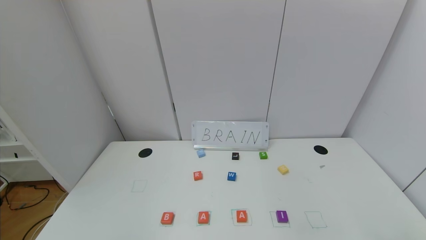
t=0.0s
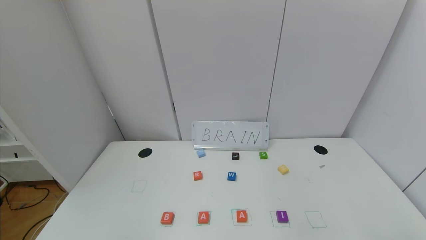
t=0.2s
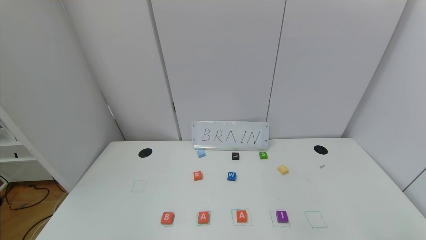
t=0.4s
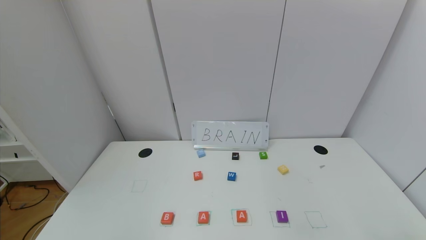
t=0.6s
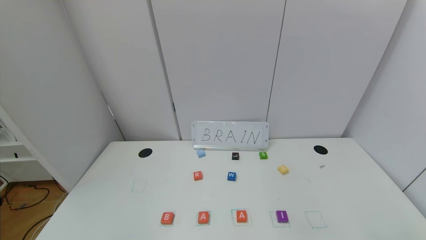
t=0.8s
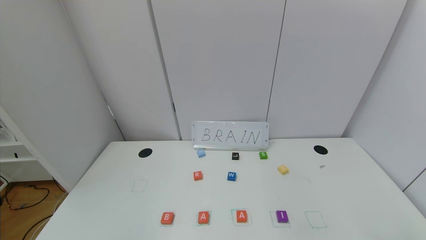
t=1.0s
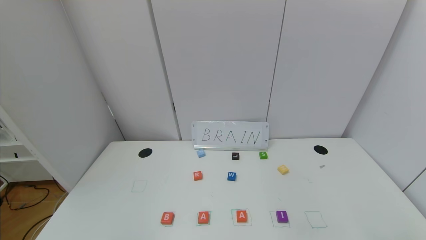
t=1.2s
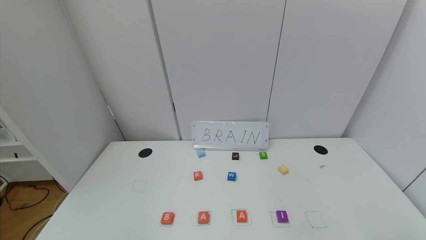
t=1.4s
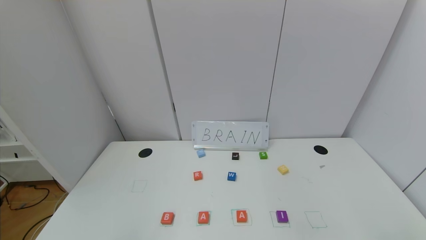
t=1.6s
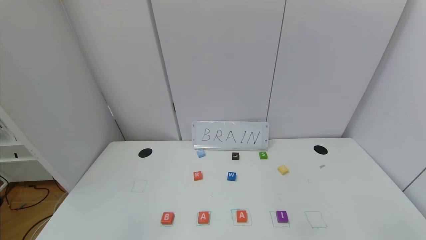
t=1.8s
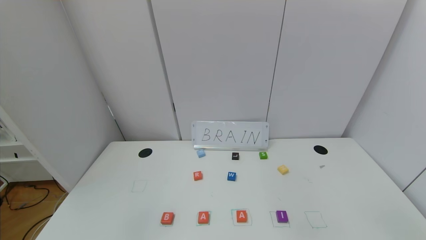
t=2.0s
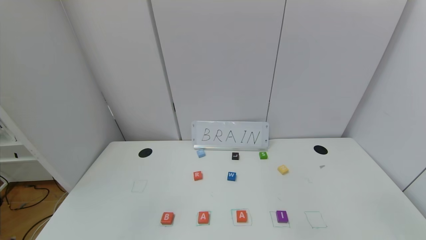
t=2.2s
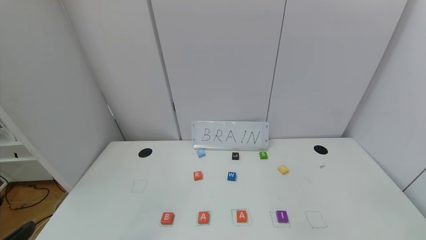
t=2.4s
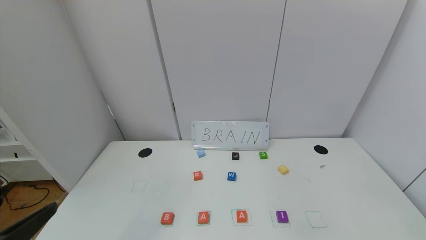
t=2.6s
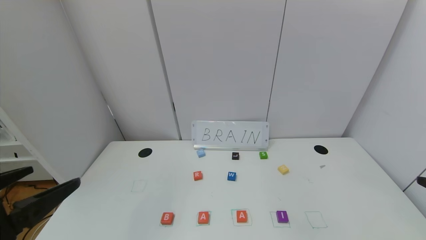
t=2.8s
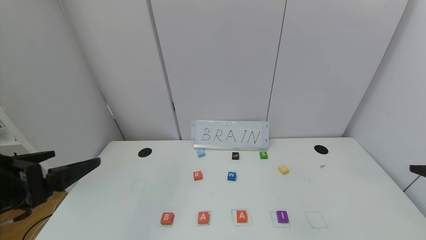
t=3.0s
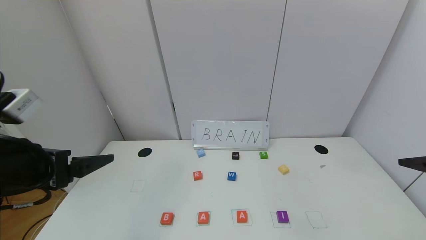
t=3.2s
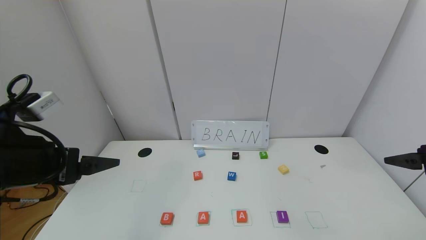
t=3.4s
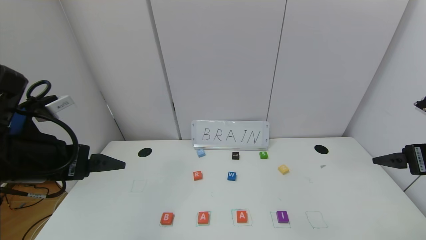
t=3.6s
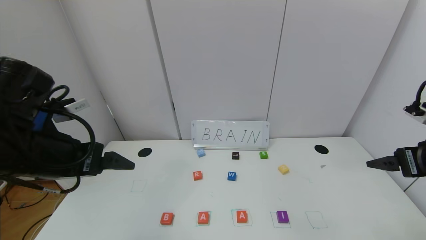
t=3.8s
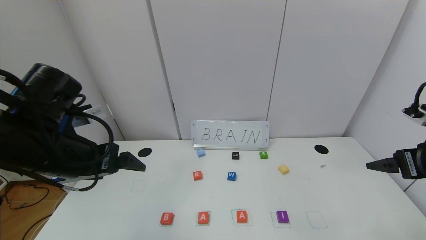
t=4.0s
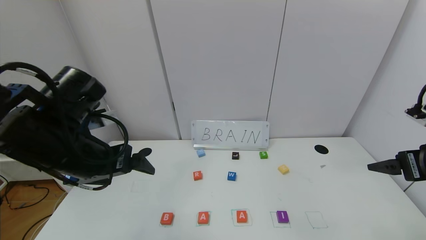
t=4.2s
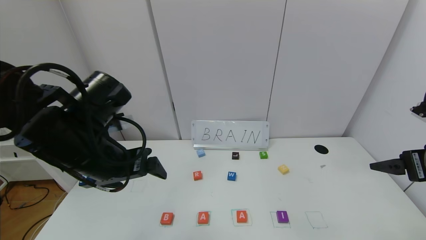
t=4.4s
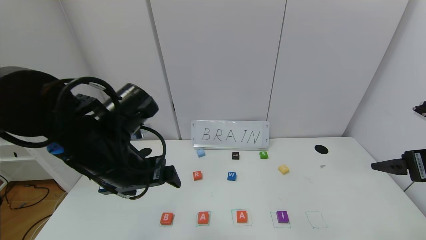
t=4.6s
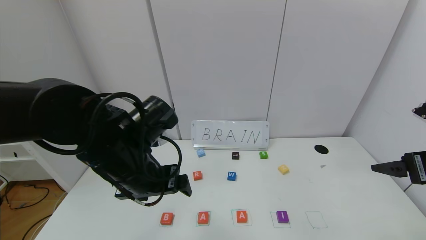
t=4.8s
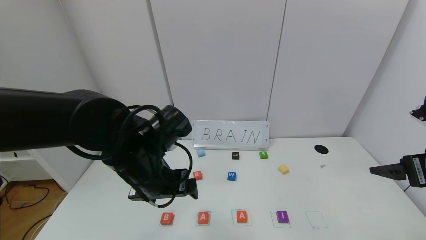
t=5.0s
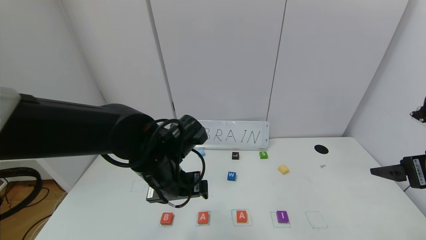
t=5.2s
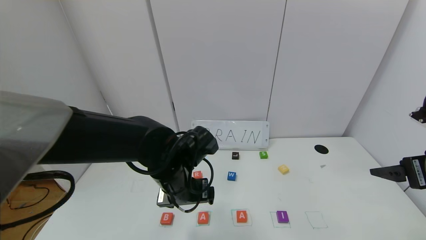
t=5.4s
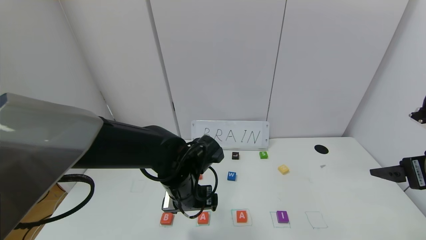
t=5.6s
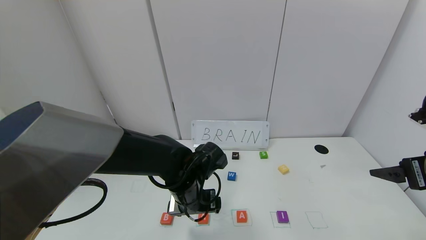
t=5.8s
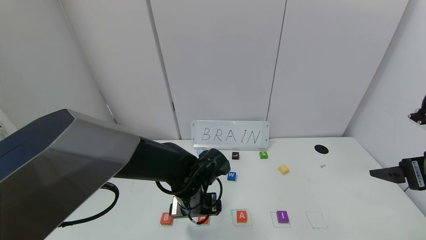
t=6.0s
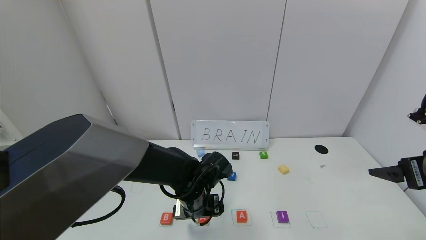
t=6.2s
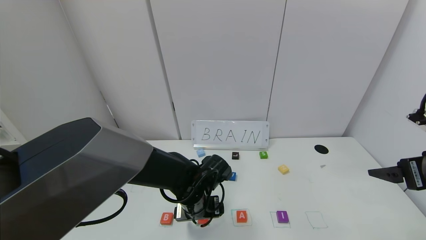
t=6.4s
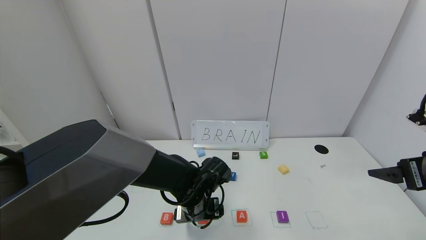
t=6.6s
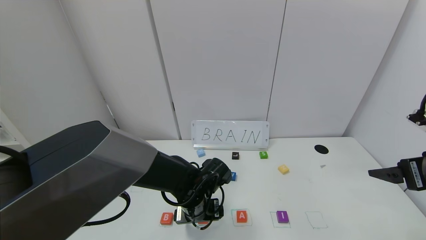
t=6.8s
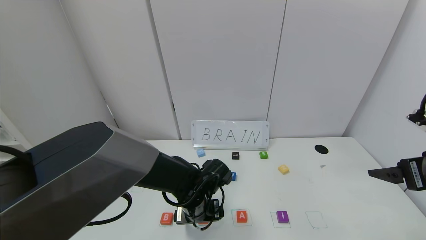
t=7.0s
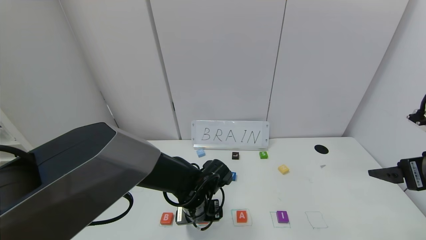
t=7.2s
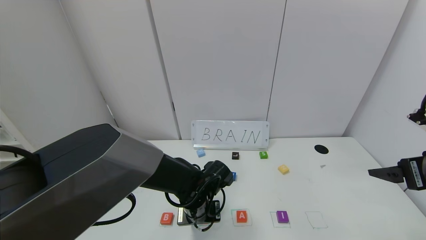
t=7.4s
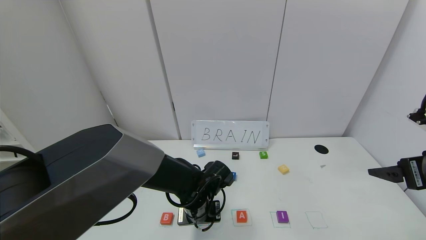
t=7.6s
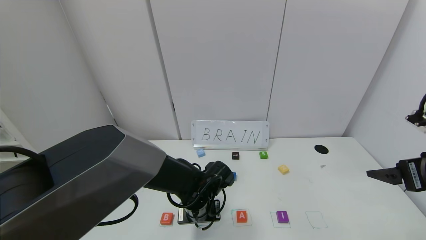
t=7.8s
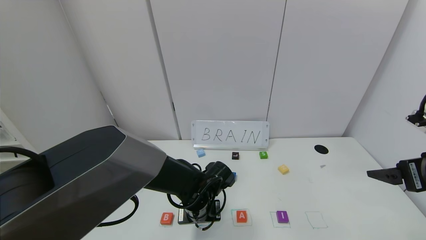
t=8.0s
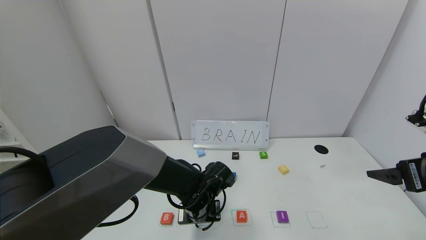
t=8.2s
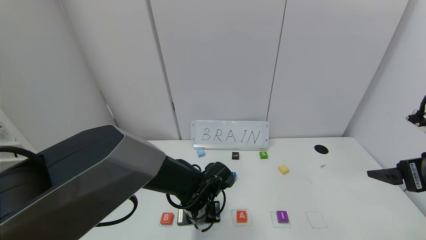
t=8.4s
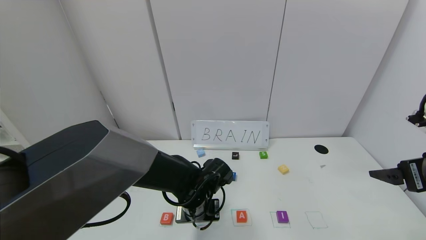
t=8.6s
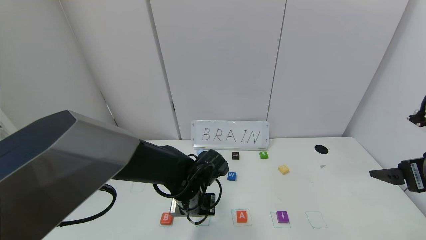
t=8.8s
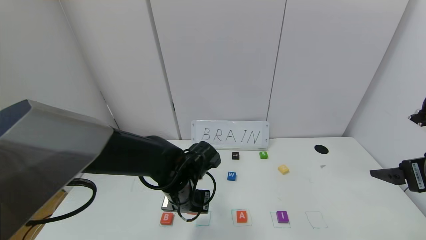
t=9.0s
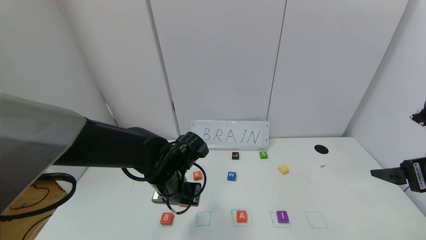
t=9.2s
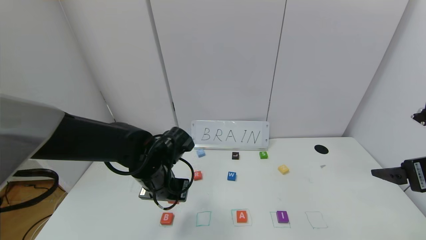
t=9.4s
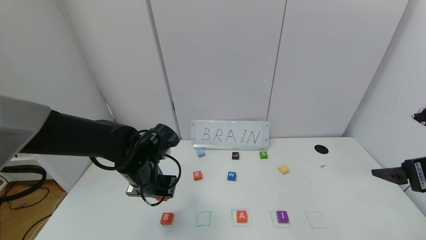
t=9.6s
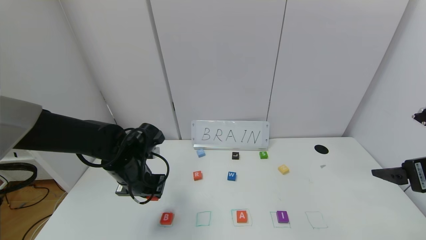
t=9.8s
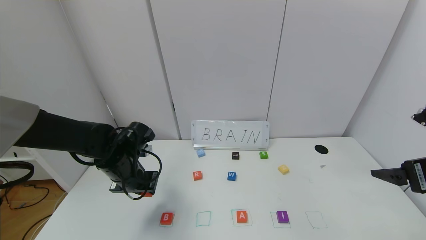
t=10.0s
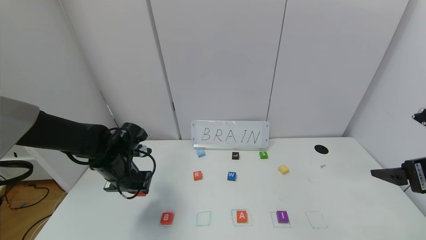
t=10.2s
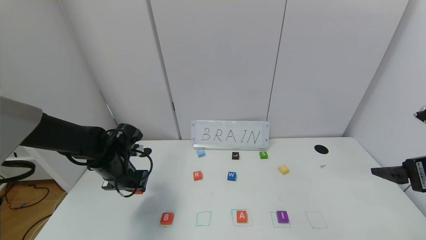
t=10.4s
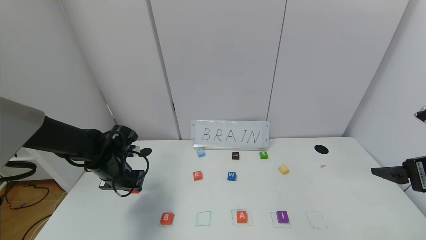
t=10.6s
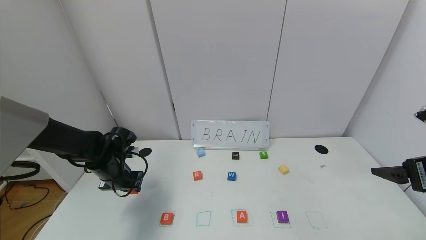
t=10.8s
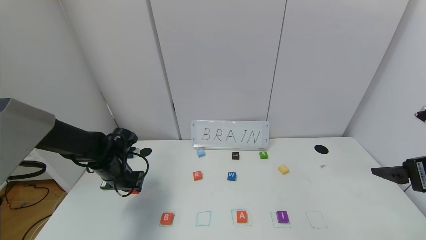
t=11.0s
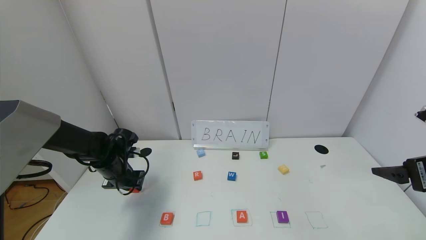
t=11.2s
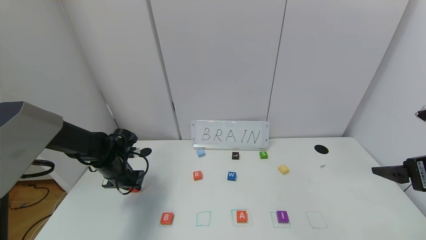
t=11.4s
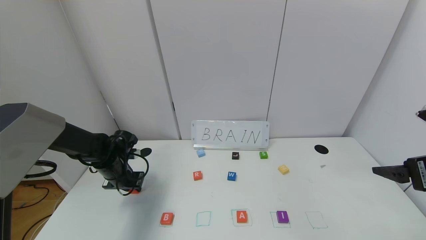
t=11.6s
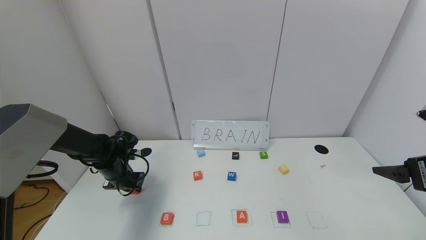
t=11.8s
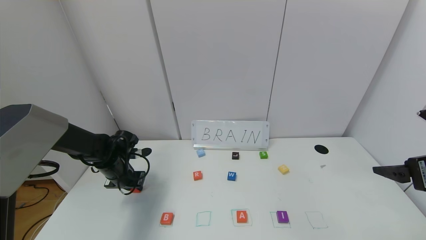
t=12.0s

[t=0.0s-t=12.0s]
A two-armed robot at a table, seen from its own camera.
Task of the whole recording: use the gripper to find blocks with the letters b, a, a, and i on the table and arrange them into BAAI, then find r and N and turn the arranged baai into brian.
t=1.6s to t=3.0s: The left gripper is displaced forward and upward by some 20 cm.
t=3.0s to t=4.4s: The left gripper shifts some 15 cm forward and to the right, while the right gripper shifts about 5 cm forward.
t=4.4s to t=6.0s: The left gripper is displaced downward and to the right by approximately 20 cm.
t=6.0s to t=7.6s: The left gripper closes.
t=7.6s to t=9.0s: The left gripper heads upward, covering approximately 5 cm.
t=9.0s to t=10.4s: The left gripper moves to the left, some 15 cm.
t=10.4s to t=12.0s: The left gripper ends up approximately 5 cm from where it was.

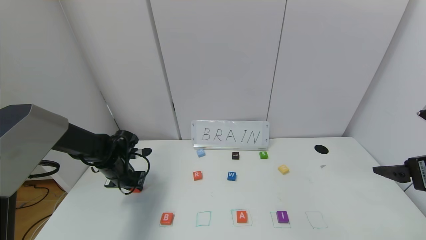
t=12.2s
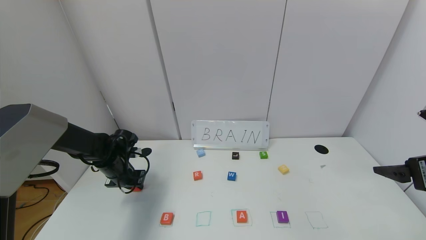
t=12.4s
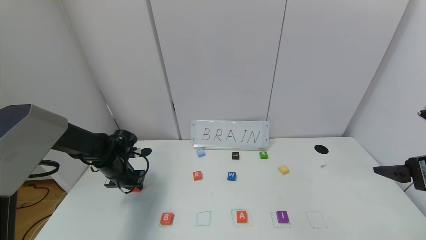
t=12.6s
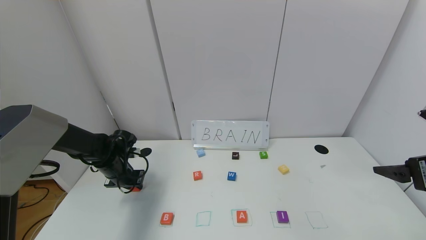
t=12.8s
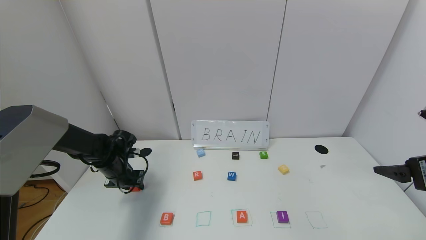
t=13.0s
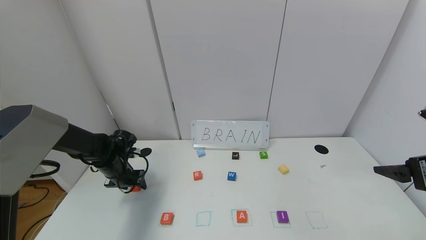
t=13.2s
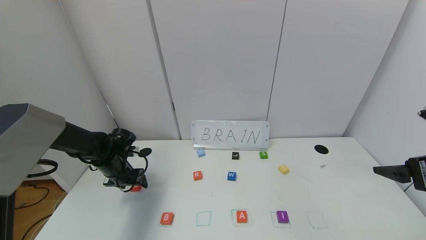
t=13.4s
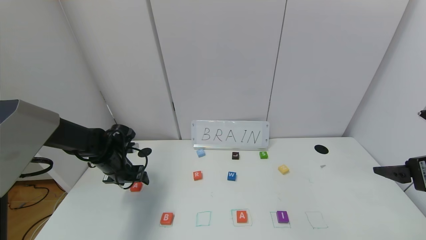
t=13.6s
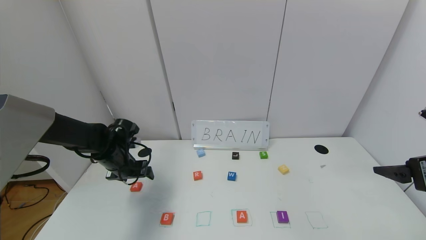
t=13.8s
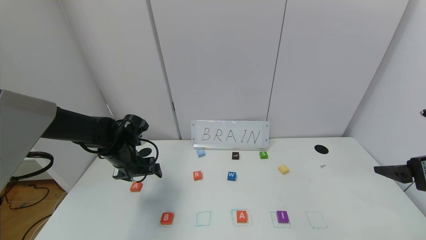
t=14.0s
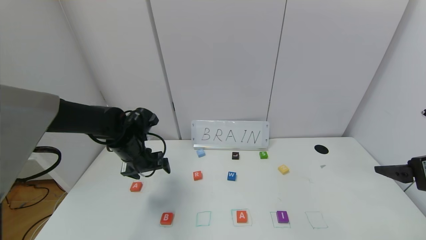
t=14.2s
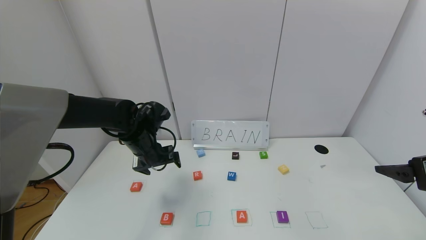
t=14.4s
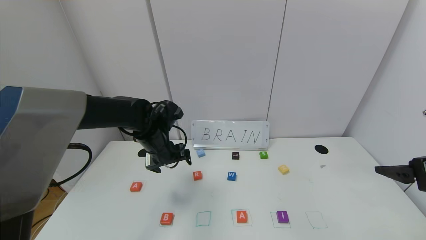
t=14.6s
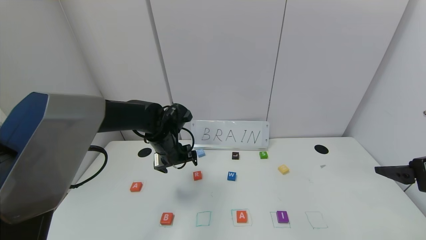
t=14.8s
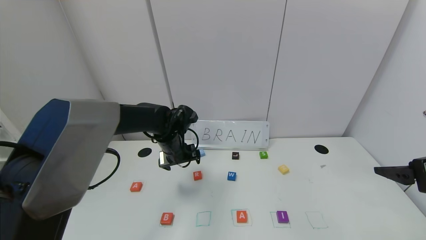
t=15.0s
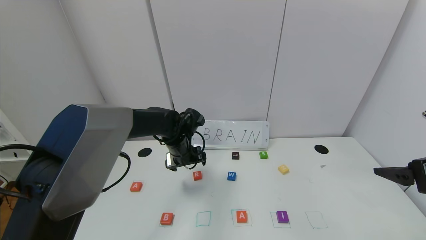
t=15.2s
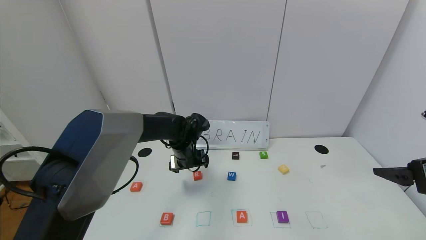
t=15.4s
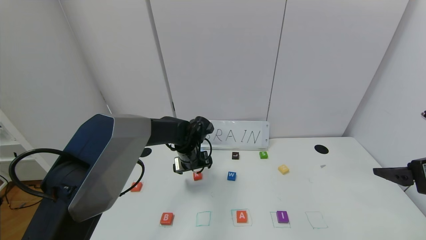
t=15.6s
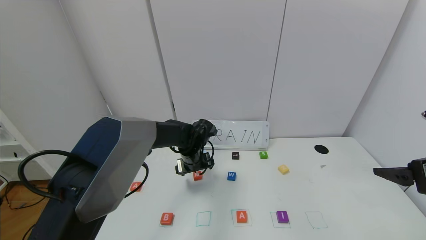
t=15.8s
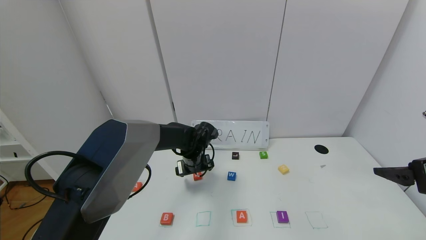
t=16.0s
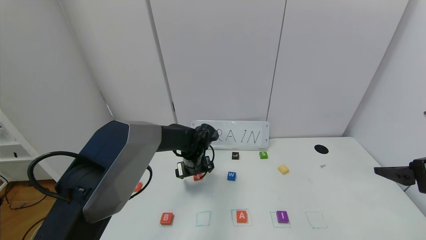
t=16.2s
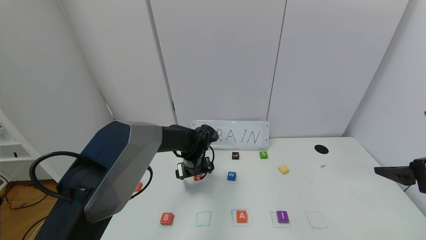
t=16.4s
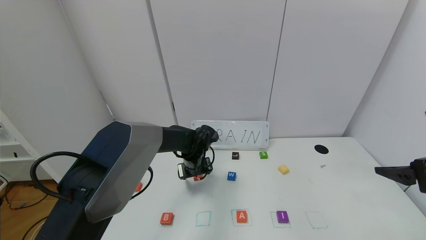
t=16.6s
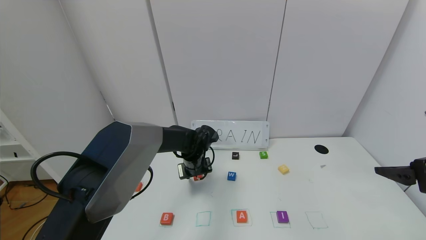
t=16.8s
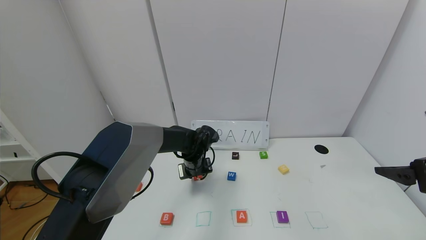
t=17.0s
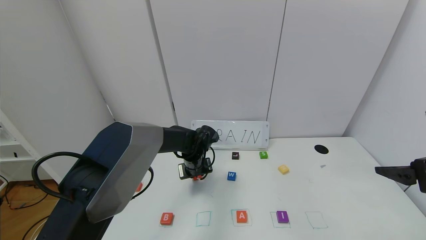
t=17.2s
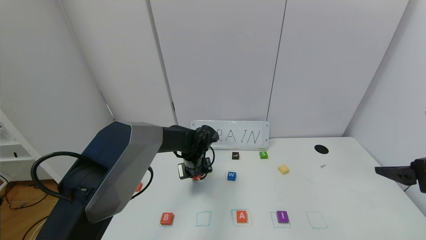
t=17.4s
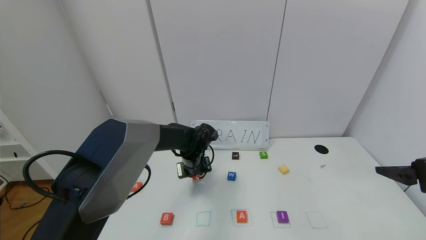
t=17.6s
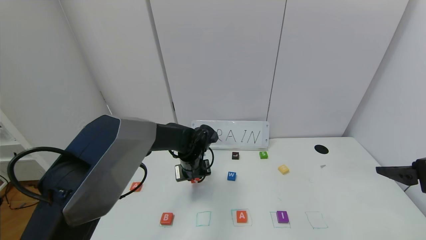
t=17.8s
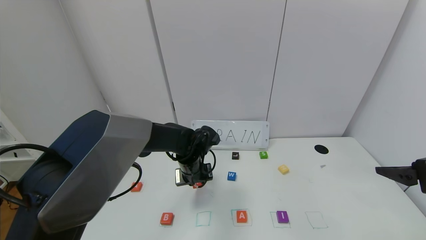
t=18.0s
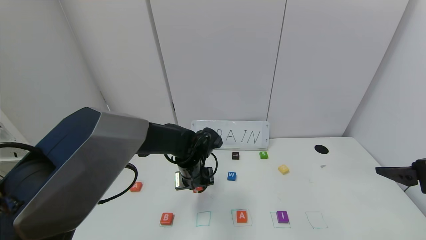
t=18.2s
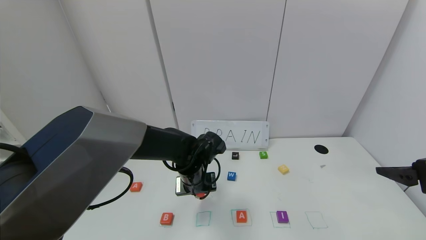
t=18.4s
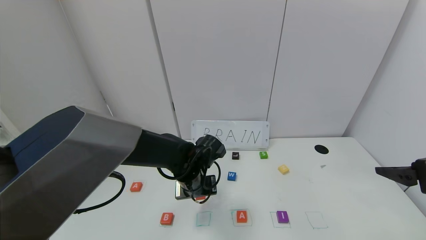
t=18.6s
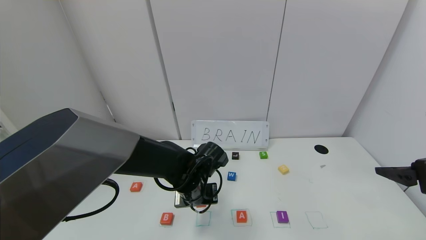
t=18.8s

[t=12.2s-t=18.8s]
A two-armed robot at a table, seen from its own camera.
Task of the whole recording: use the gripper to find blocks with the letters b, a, a, and i on the table and arrange them into BAAI, then find r and N and turn the arranged baai into brian.
t=12.2s to t=13.8s: The left gripper opens up.
t=13.8s to t=15.4s: The left gripper shifts roughly 15 cm to the right.
t=15.4s to t=17.2s: The left gripper closes up.
t=17.2s to t=18.8s: The left gripper heads backward, covering approximately 10 cm.
